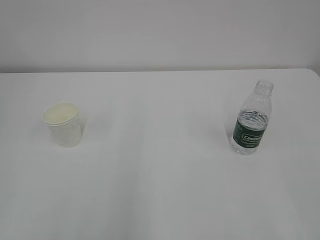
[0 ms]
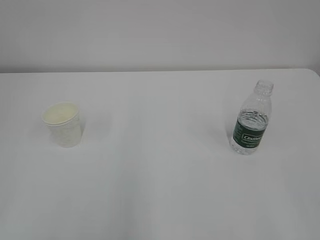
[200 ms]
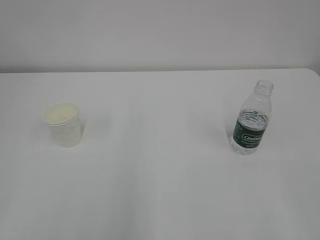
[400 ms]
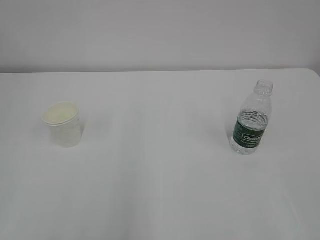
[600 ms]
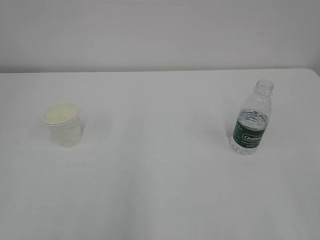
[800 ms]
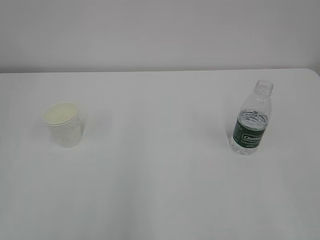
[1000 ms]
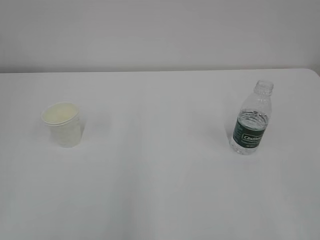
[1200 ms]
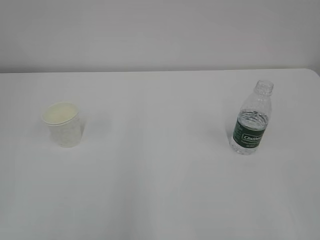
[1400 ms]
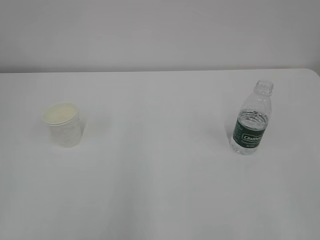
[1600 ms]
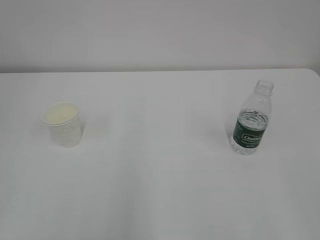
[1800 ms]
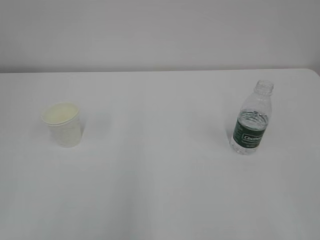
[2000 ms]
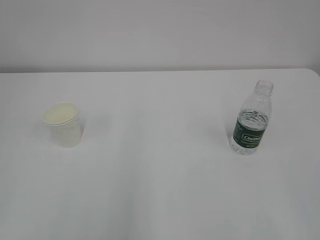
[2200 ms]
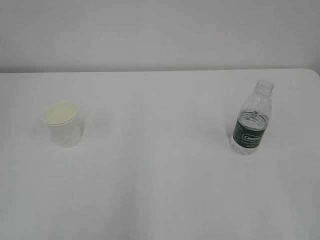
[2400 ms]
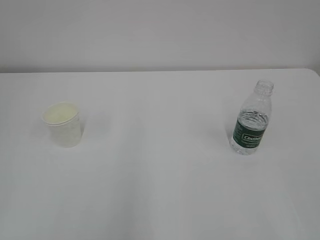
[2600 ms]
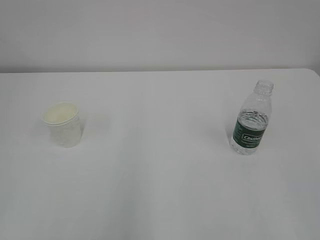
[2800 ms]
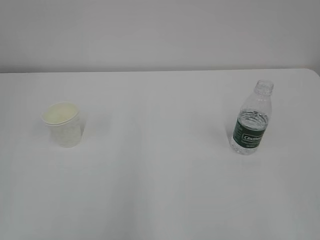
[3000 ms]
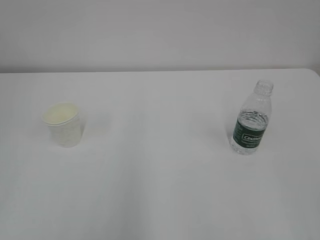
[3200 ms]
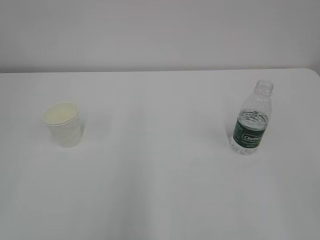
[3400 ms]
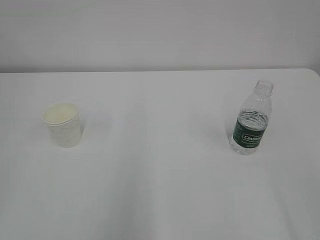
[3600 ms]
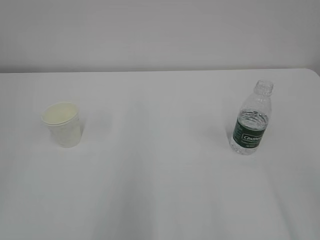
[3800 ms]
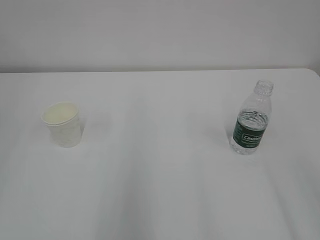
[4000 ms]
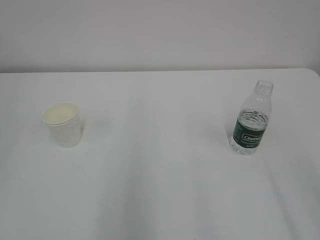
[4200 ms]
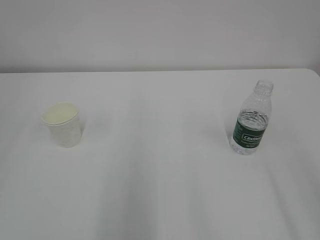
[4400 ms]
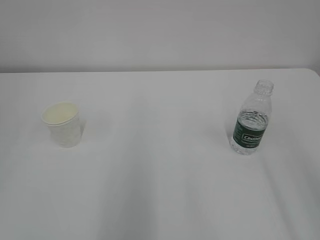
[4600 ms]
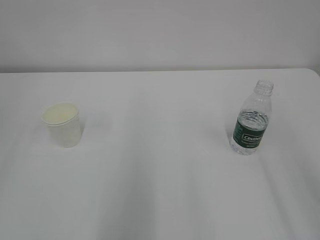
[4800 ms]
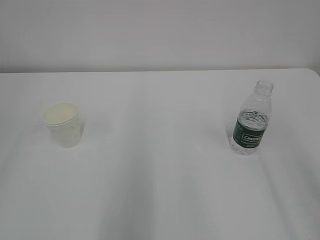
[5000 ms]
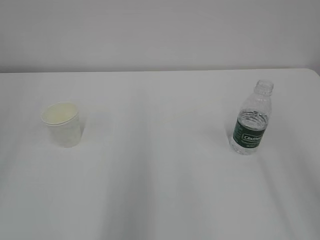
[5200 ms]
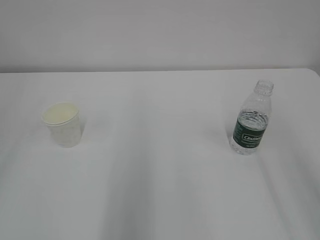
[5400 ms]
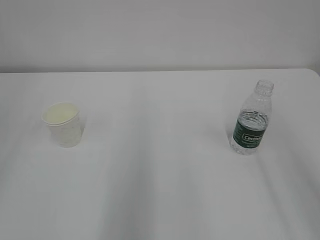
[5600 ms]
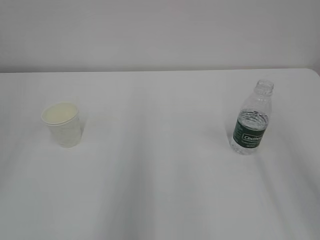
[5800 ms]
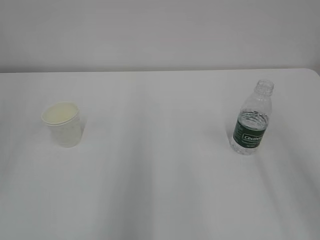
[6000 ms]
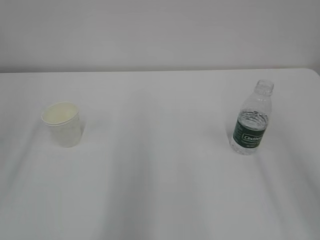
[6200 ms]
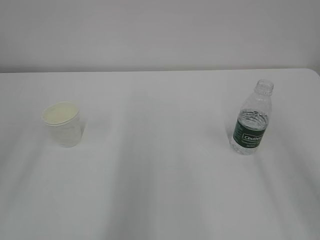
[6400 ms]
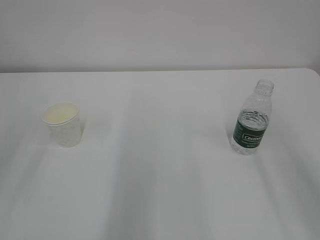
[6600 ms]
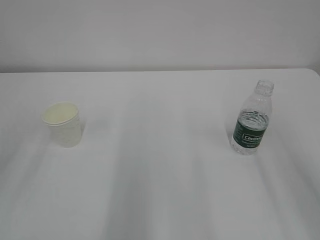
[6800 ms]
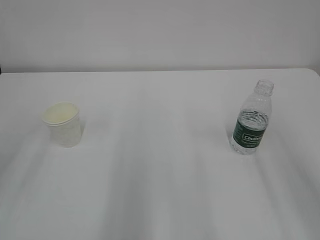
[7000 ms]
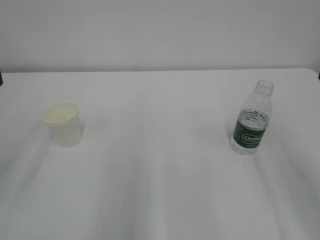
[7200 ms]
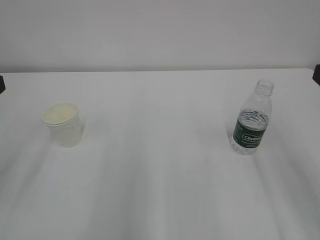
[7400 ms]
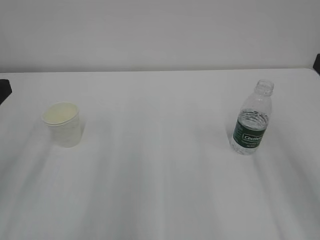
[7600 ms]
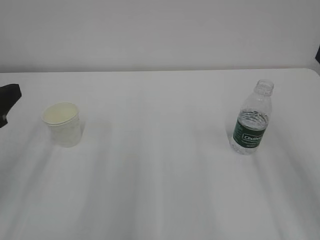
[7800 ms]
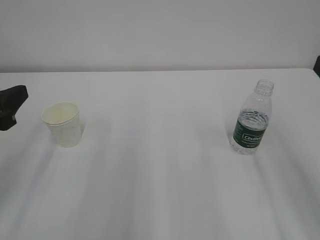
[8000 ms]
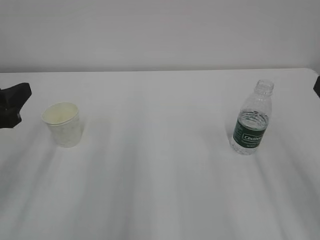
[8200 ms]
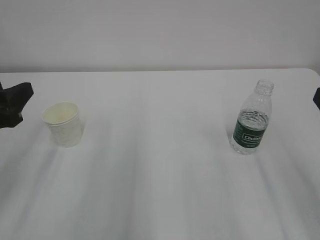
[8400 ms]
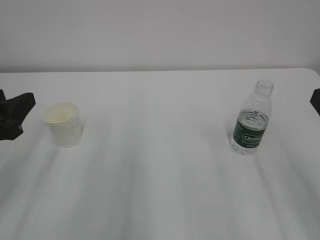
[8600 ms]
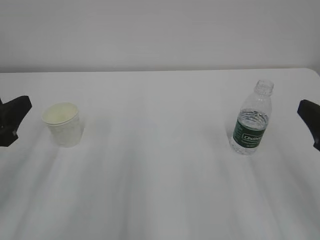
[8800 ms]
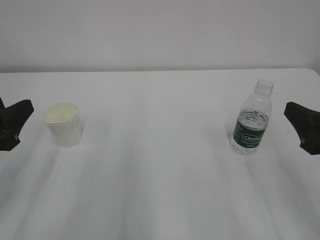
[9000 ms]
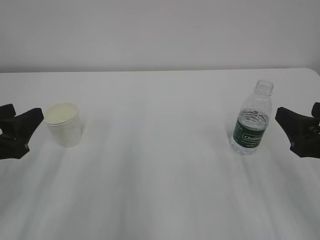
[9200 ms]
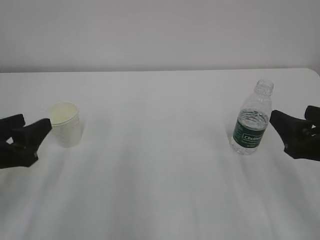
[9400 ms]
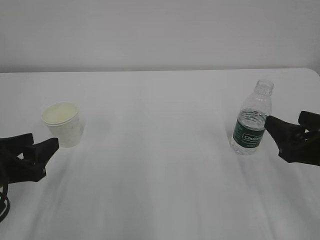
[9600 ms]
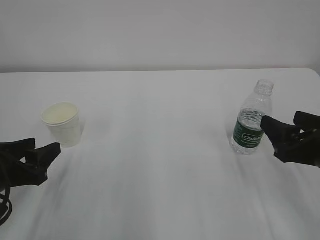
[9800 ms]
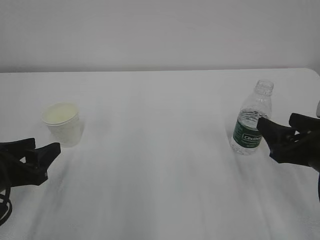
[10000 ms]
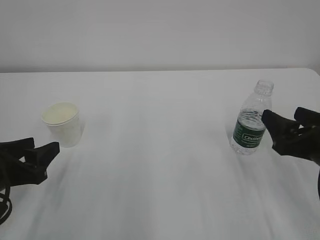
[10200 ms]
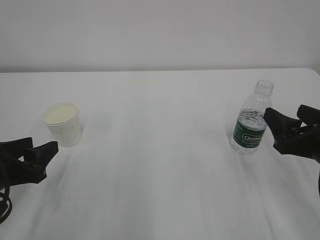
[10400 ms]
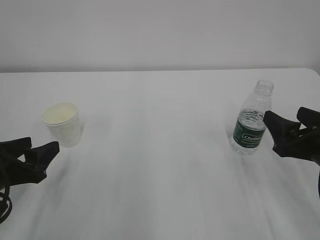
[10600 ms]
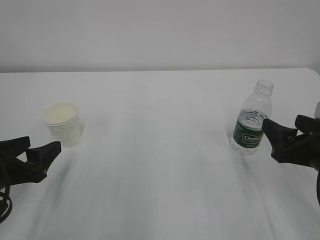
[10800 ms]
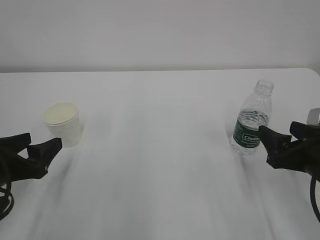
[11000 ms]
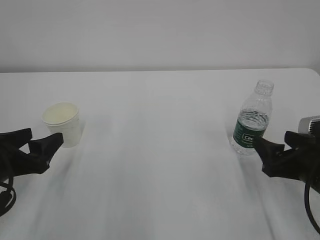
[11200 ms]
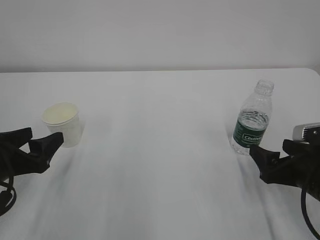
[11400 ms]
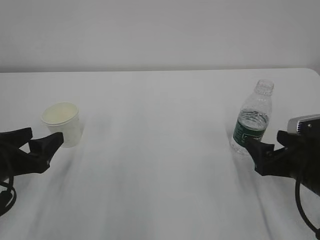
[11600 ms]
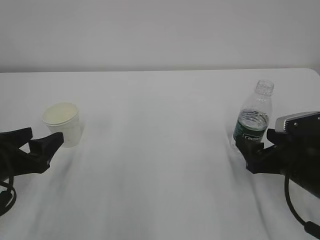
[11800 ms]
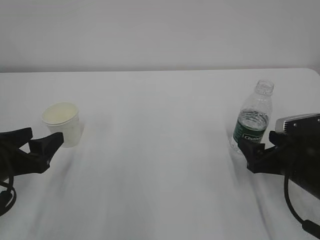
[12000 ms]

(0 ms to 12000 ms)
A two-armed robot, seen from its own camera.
1600 ms - 3000 ms: Both grippers stay put.
7600 ms - 9000 ms: Both grippers move downward, roughly 5 cm.
9000 ms - 10400 ms: The left gripper moves downward, about 5 cm. Meanwhile the right gripper shifts by approximately 5 cm.
10400 ms - 12000 ms: The right gripper moves downward, approximately 5 cm; the left gripper opens.

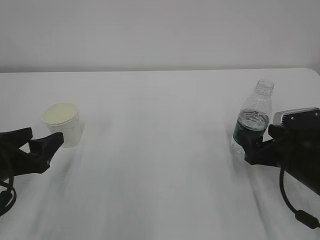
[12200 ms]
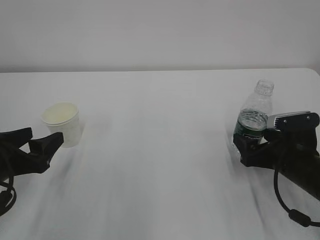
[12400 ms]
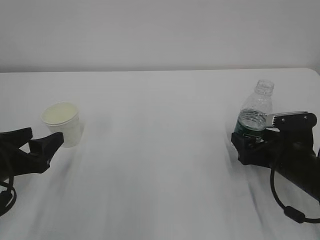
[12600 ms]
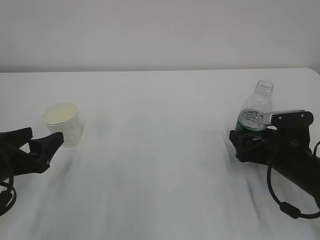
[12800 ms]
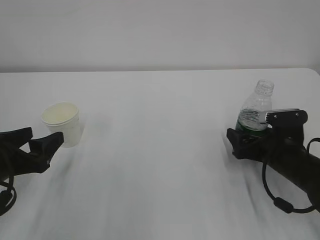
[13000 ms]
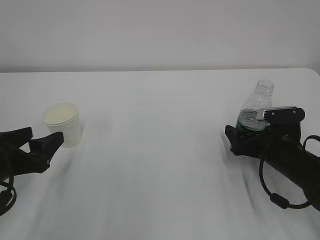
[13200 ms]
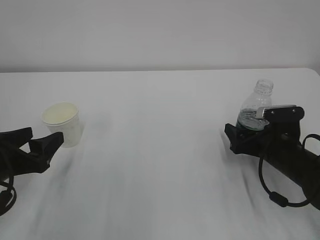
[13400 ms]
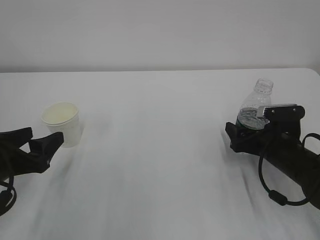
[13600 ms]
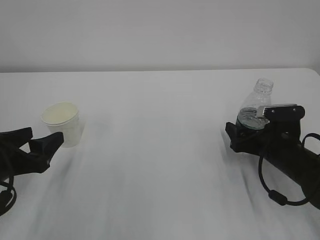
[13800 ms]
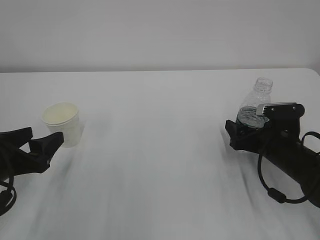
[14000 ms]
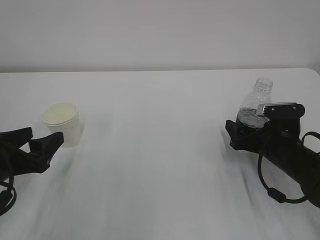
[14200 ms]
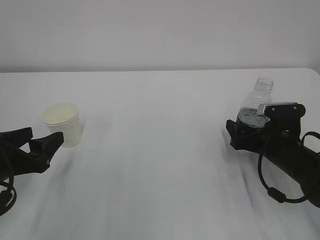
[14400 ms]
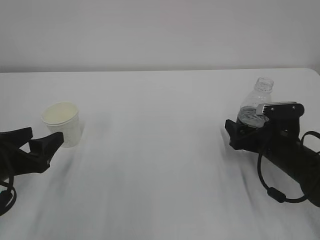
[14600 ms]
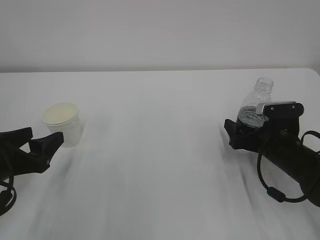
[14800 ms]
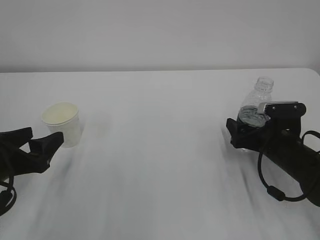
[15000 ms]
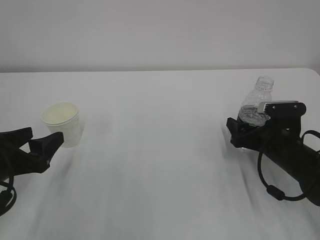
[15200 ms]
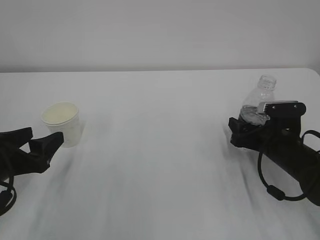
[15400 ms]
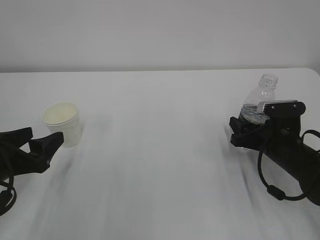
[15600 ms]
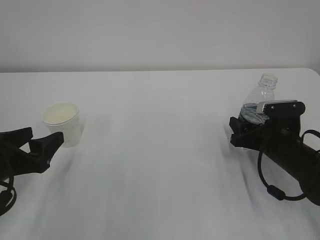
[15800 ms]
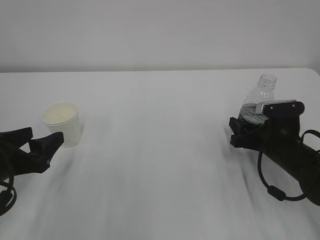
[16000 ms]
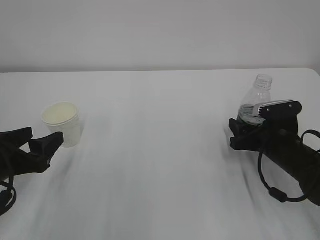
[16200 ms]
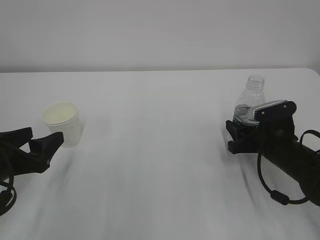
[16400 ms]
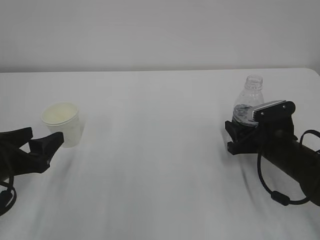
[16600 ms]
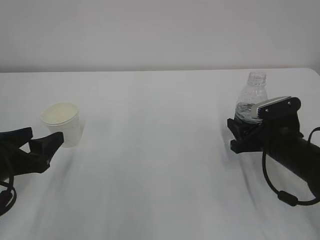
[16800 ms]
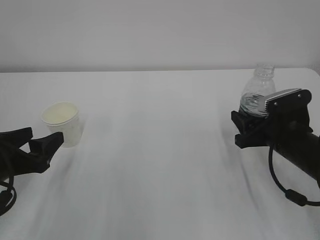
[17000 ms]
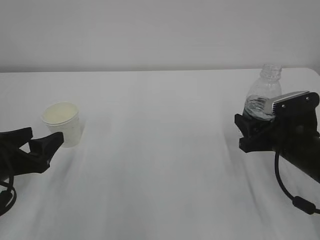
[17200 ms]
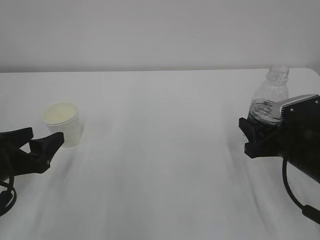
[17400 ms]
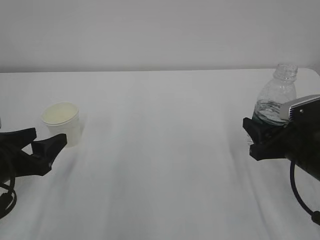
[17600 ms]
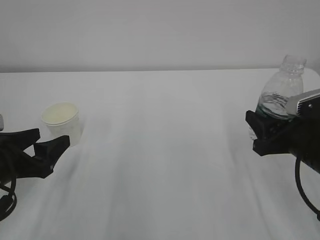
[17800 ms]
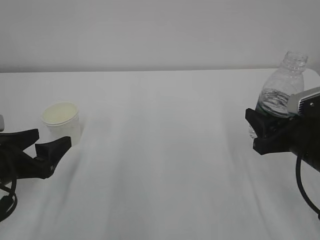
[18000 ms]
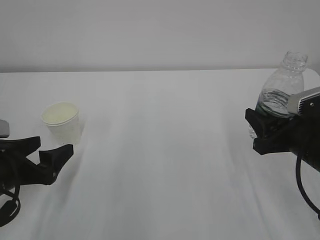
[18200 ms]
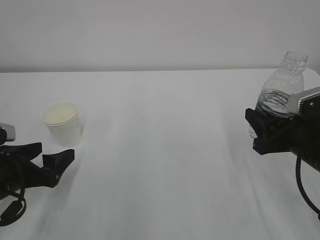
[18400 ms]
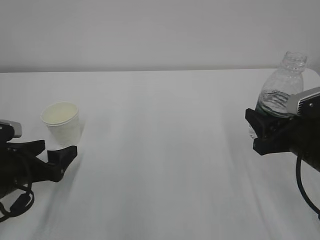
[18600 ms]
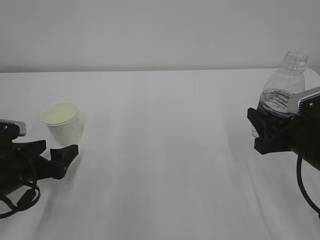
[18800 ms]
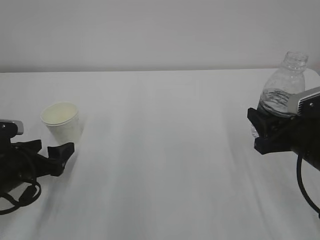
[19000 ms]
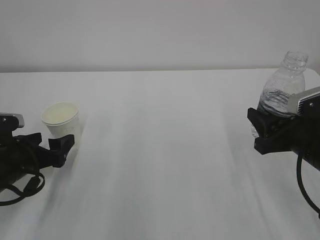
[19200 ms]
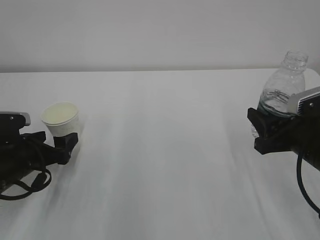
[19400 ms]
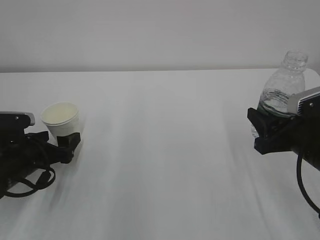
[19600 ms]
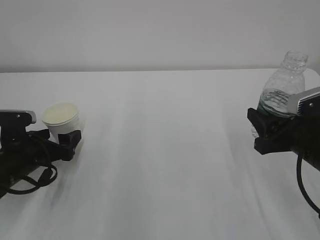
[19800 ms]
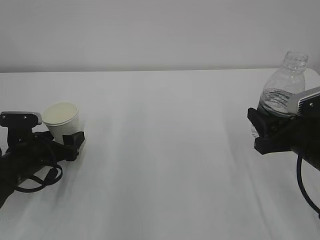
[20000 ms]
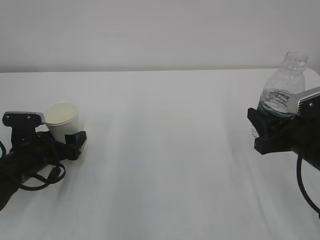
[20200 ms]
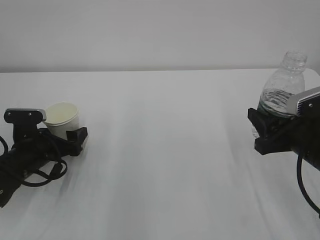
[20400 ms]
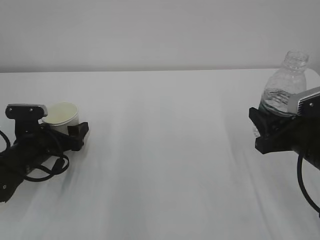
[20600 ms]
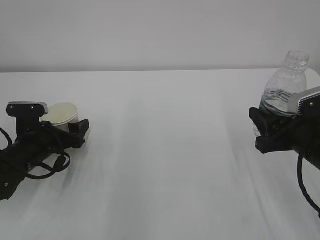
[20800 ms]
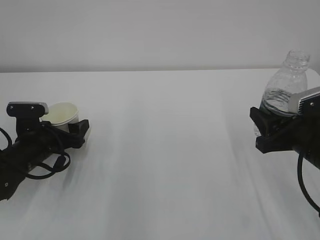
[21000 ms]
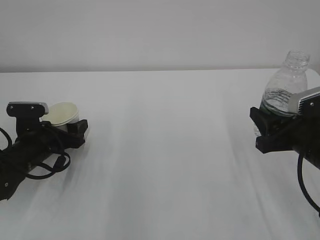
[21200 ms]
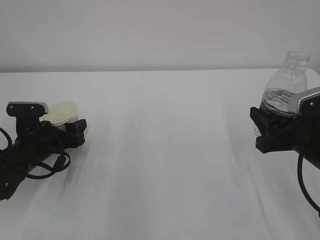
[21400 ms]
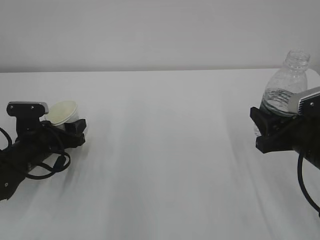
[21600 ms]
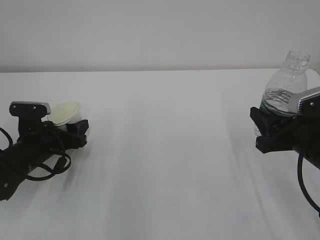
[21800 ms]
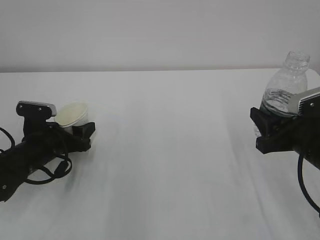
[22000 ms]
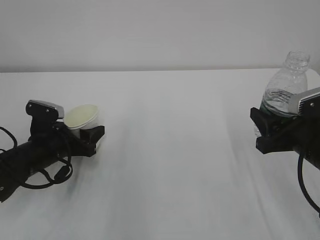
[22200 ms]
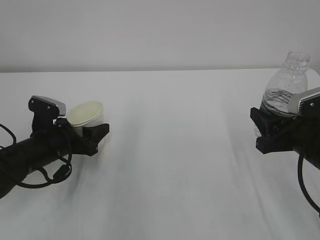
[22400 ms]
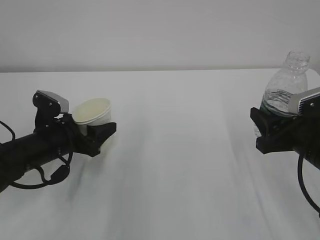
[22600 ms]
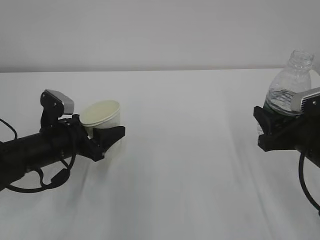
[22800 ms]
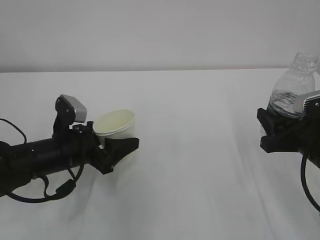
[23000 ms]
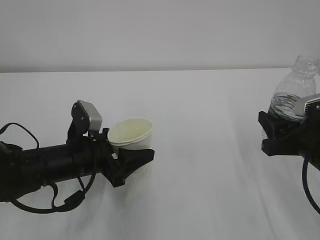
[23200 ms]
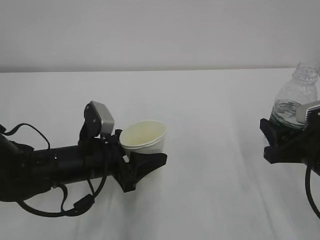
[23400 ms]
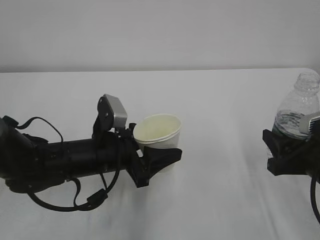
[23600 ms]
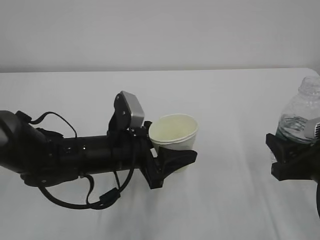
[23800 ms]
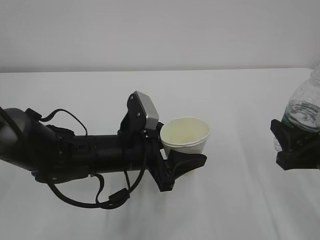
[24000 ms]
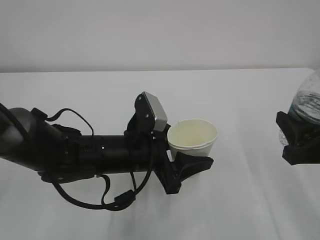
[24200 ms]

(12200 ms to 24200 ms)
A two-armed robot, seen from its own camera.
12200 ms - 13800 ms: The right gripper changes place by approximately 5 cm.
13800 ms - 15200 ms: Both grippers stay about where they are.
15200 ms - 16600 ms: The right gripper closes its fingers.
16600 ms - 18200 ms: The right gripper goes about 10 cm upward and backward.
18200 ms - 19800 ms: The left gripper heads forward, covering about 5 cm.
19800 ms - 21200 ms: The left gripper closes its fingers.
22600 ms - 24200 ms: The left gripper is displaced to the right by roughly 15 cm. The right gripper moves some 5 cm.
